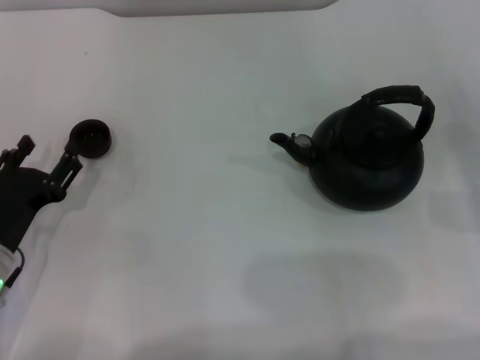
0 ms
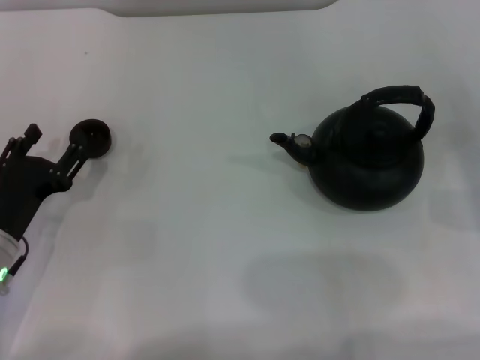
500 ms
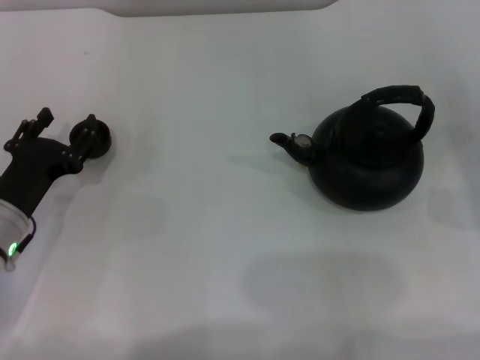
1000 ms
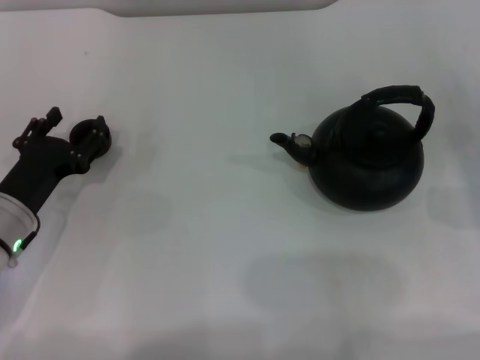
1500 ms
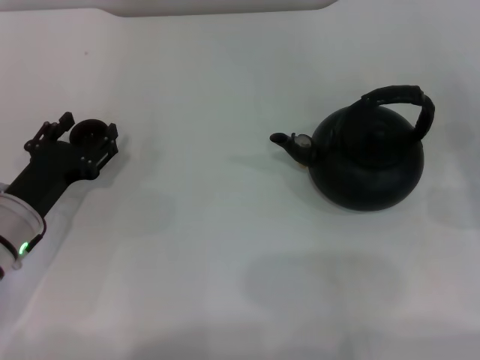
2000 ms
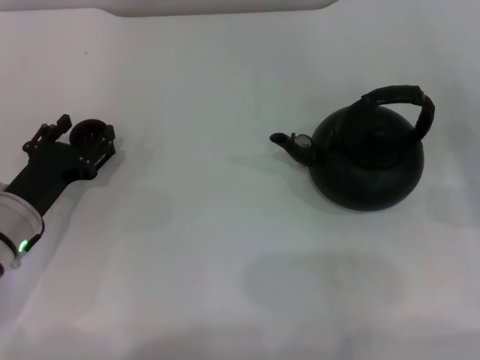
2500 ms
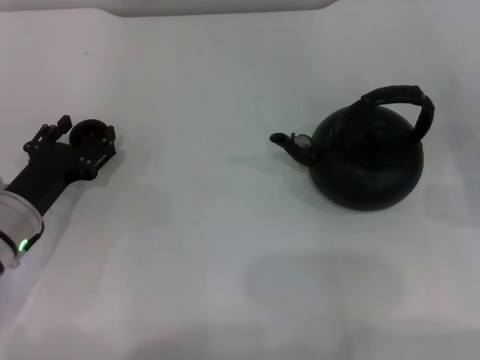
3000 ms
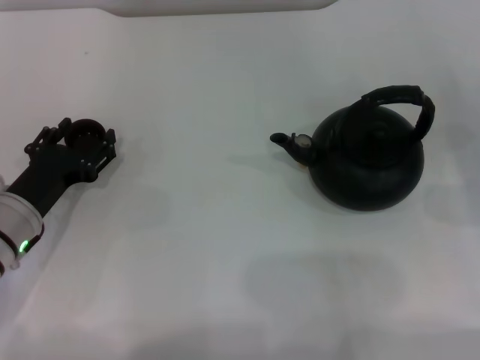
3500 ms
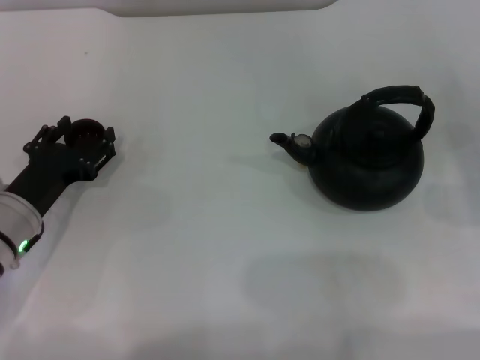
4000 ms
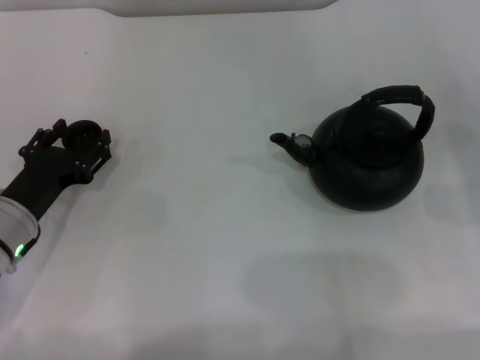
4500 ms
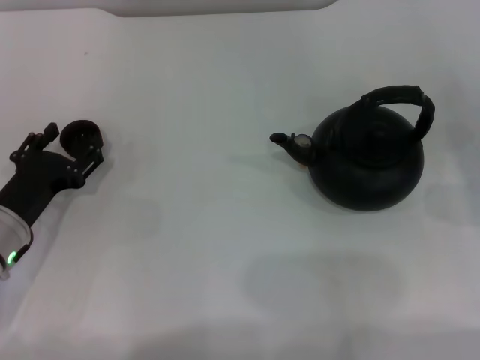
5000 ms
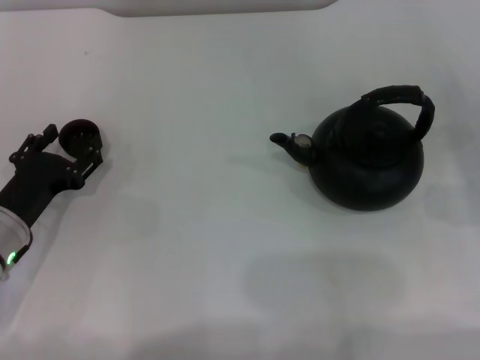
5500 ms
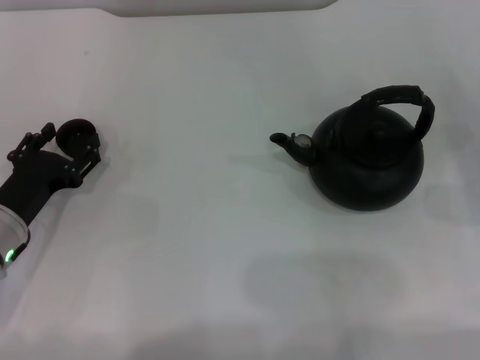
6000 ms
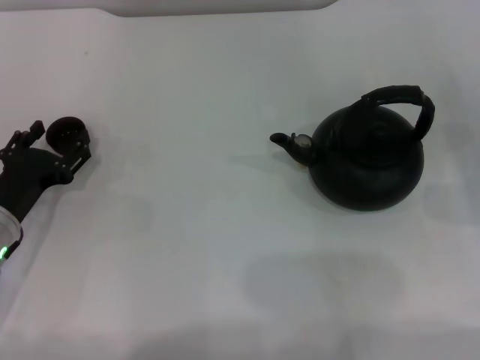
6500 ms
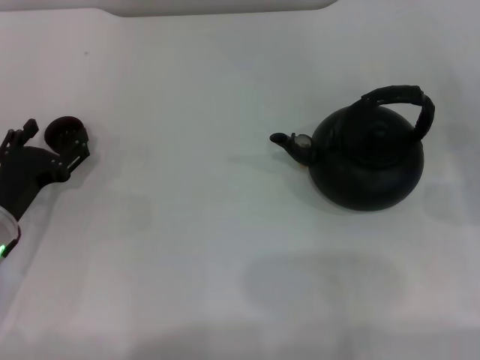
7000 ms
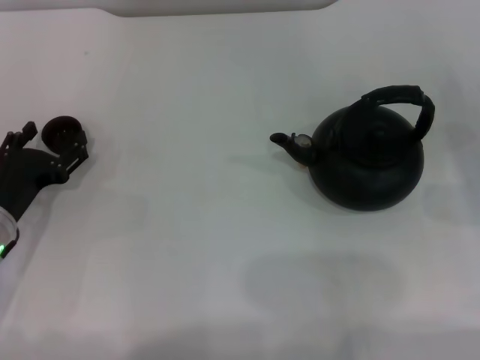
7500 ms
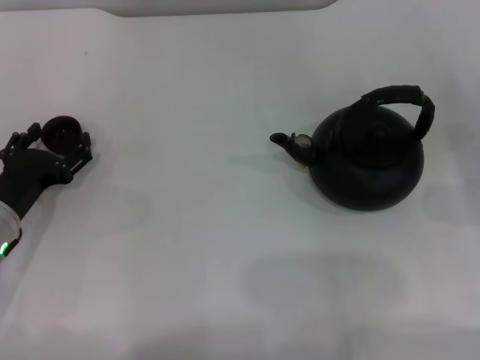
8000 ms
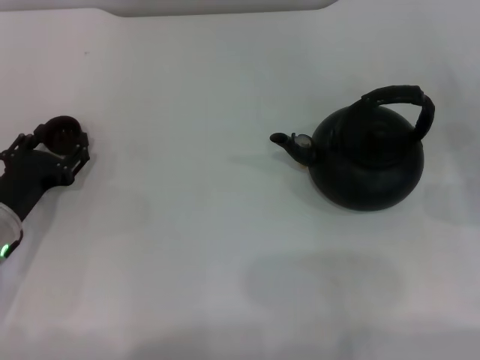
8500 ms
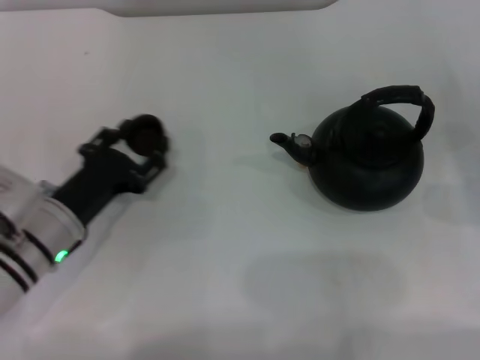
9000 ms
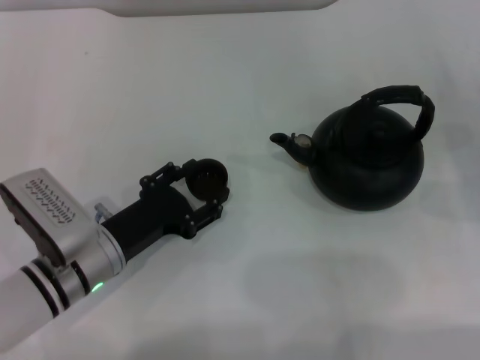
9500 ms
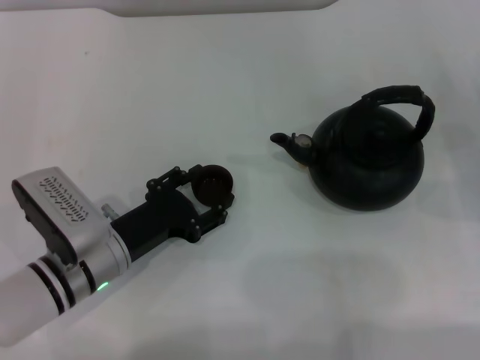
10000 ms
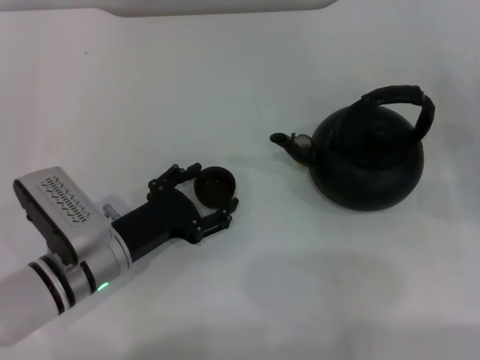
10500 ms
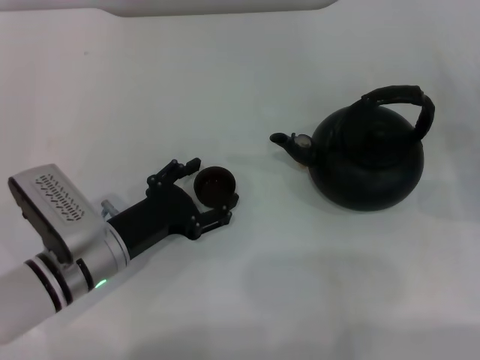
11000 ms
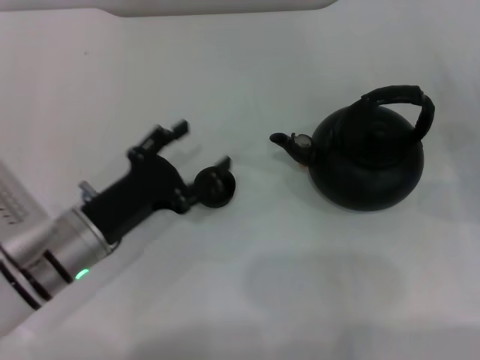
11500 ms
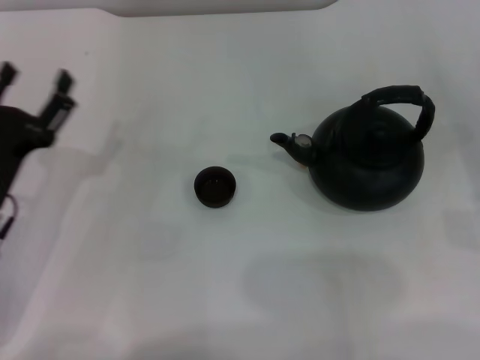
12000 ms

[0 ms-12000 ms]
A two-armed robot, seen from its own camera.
Task of the whole recording: Grasp the handle of the teapot with one hand and pour tea into the teacup.
Step, 0 ms to 8500 ms: Pick up the teacup with the left gripper.
Step, 9000 ms to 11500 ms: Place the teacup in the center of view with the left gripper.
0 ms to 2000 ms: The grippers move only a little.
2000 ms to 4000 ms: Both grippers stay about where they are.
4000 ms to 6000 ms: The grippers move only a little.
6000 ms to 8000 ms: The left gripper opens up.
8000 ms to 10000 ms: The left gripper is displaced to the right by approximately 10 cm, and closes up.
10000 ms to 12000 ms: The left gripper travels to the left by about 10 cm, and opens its fingers.

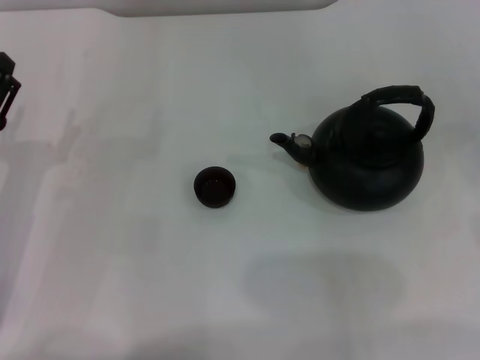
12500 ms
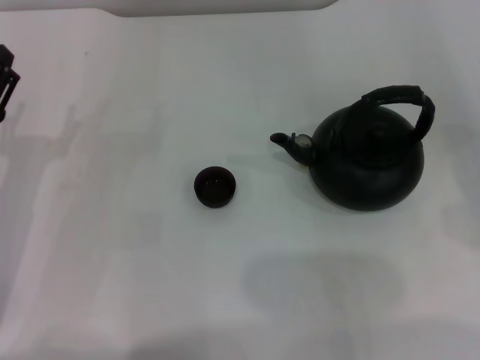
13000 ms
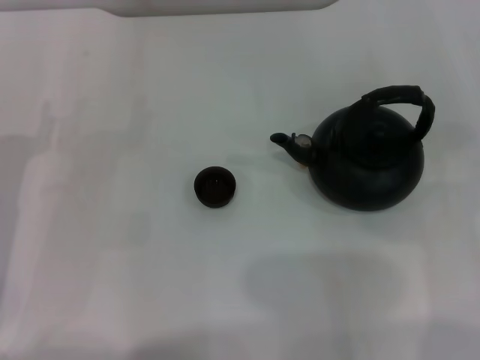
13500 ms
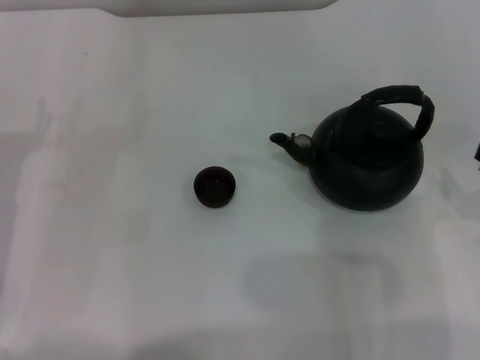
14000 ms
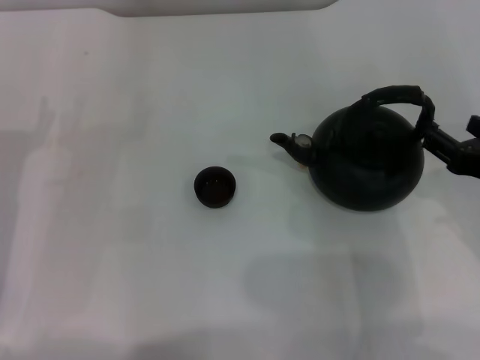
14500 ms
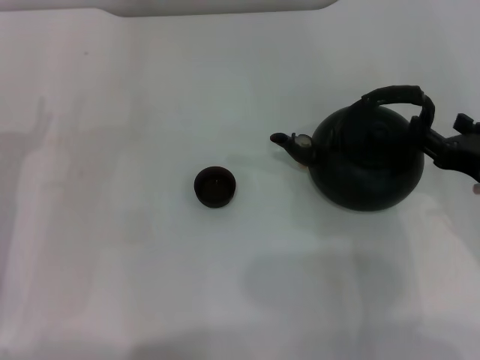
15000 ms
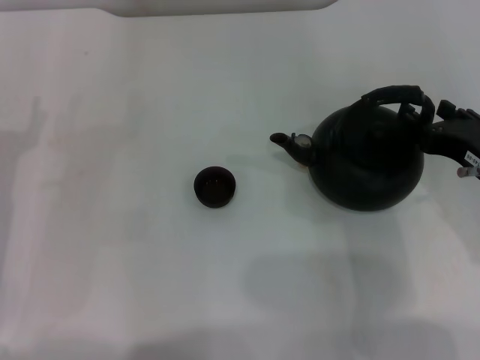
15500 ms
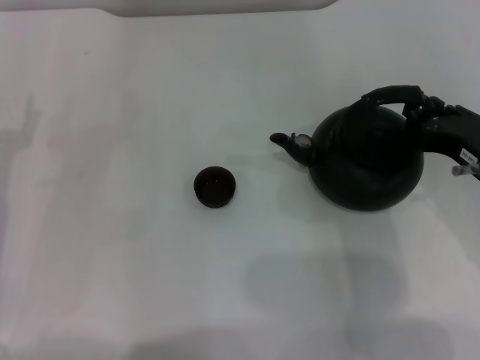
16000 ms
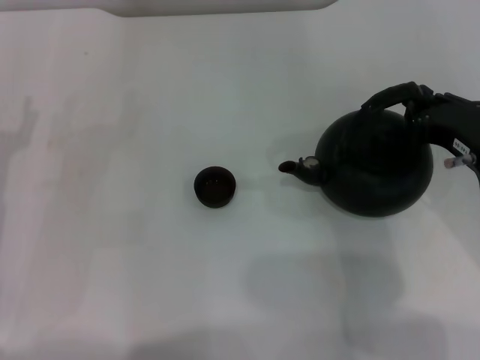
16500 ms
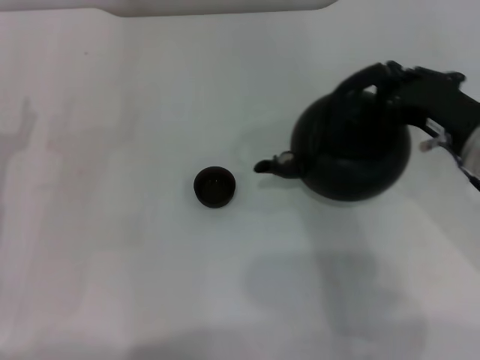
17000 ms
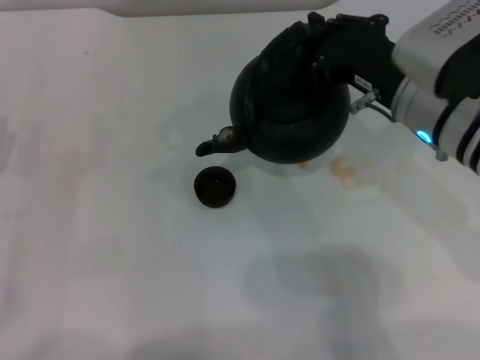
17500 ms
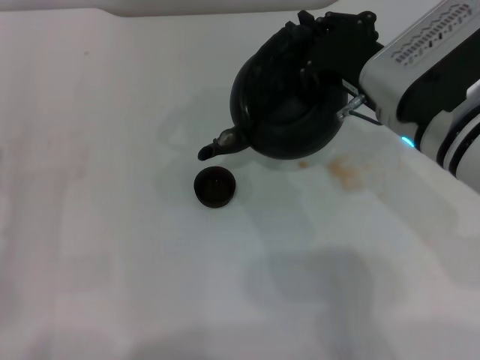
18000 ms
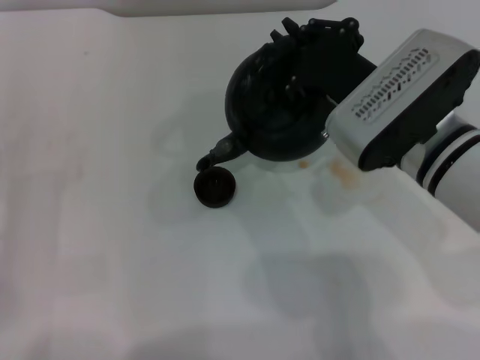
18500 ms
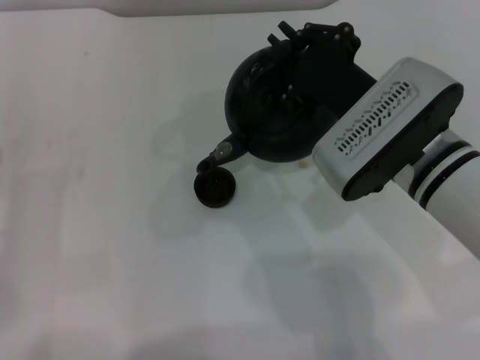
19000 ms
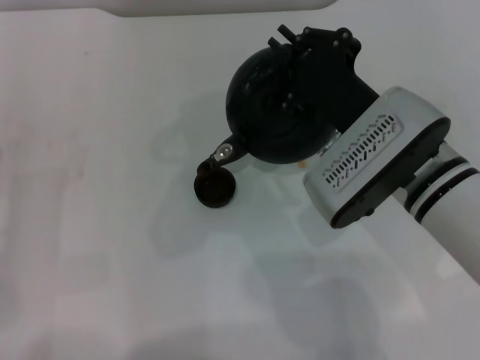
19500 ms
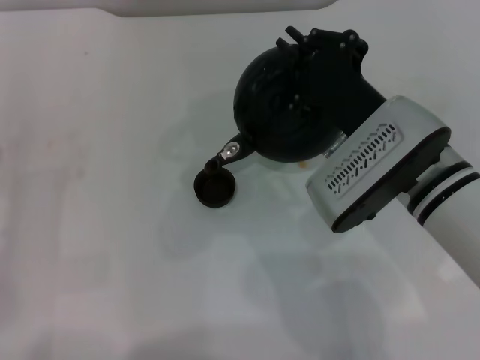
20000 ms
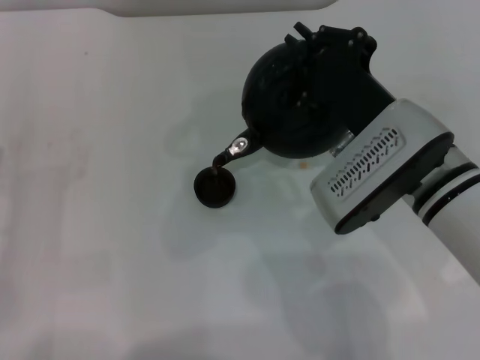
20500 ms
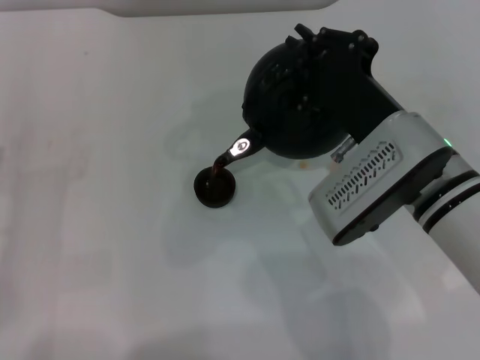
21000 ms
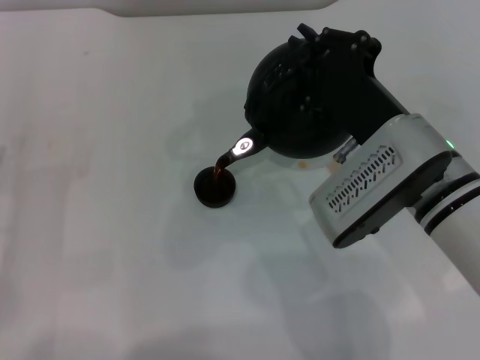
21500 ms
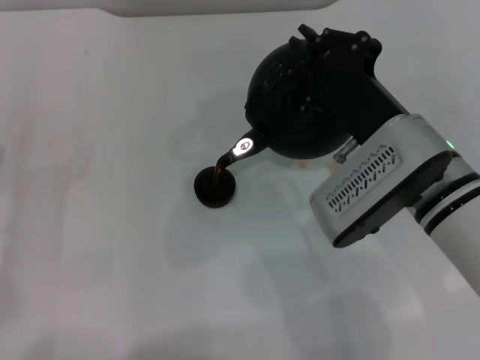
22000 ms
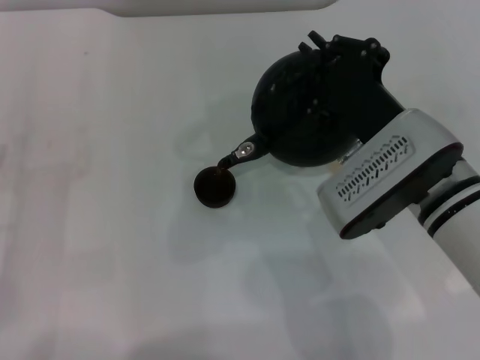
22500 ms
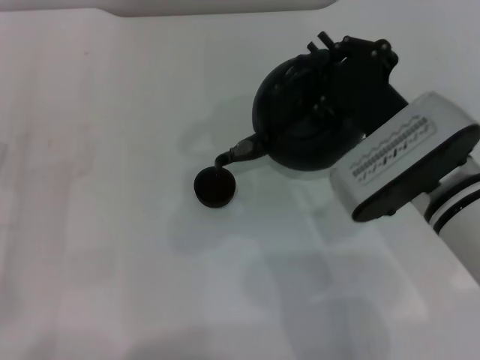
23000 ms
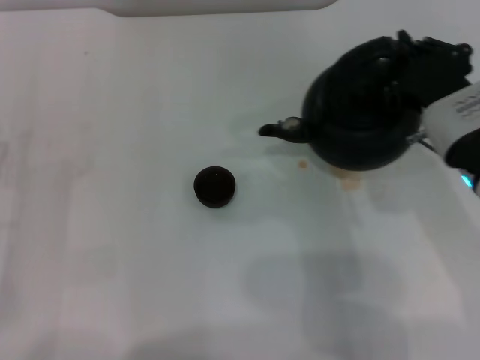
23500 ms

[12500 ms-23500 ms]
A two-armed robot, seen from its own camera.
Task of the whole recording: Grasp the handle of the teapot with one hand and pour tea into the teacup.
Step, 12500 ms to 16500 ms: Pick up the teapot with the right gripper.
Step, 17500 ms to 23000 ms: Pour tea into the teacup with the right gripper.
12500 ms to 14500 ms: The right gripper travels to the left by roughly 20 cm.
14500 ms to 16000 ms: The grippers stay close to where they were, moving slightly.
16000 ms to 18000 ms: The right gripper travels to the left and forward by approximately 10 cm, and closes. Meanwhile the left gripper shifts roughly 5 cm backward.
20000 ms to 21500 ms: The grippers make only small movements.
21500 ms to 23500 ms: The right gripper heads to the right, covering about 5 cm.

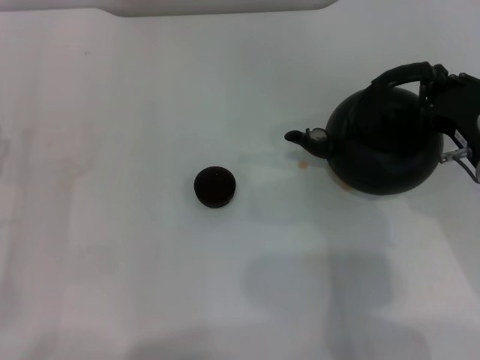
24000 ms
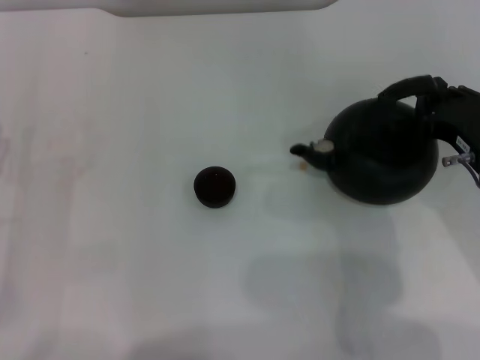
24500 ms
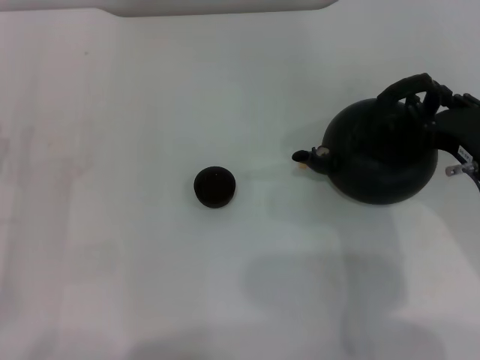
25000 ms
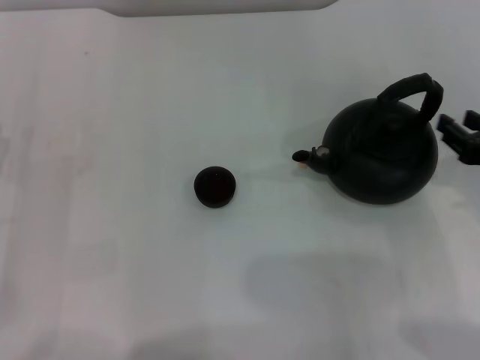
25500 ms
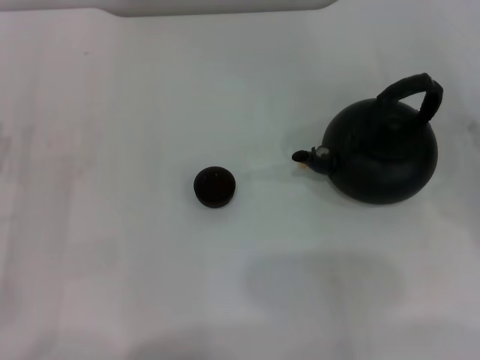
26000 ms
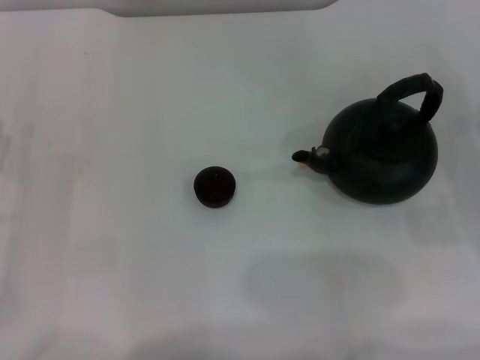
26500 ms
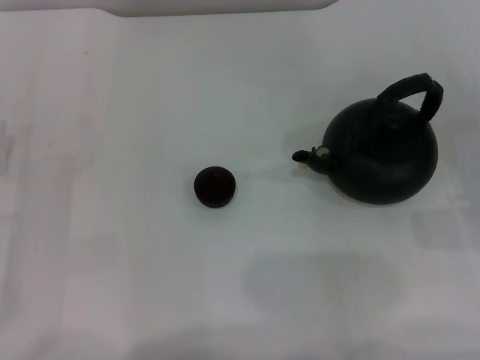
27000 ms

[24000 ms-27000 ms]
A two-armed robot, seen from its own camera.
Task of the whole recording: Grasp the handle of the teapot with one hand and pour tea into the teacup.
Step, 24000 ms to 25000 ms: Put down the teapot with the right gripper.
24000 ms to 25500 ms: The right gripper heads to the right, covering roughly 5 cm, and opens up.
25500 ms to 27000 ms: The right gripper shifts about 10 cm downward and to the right.
